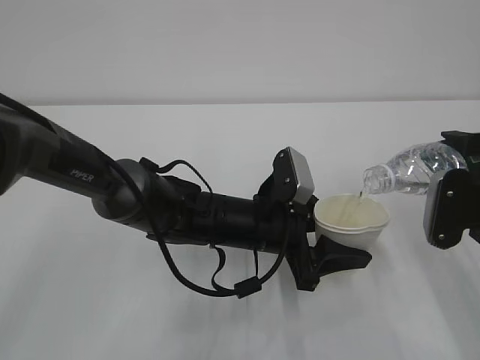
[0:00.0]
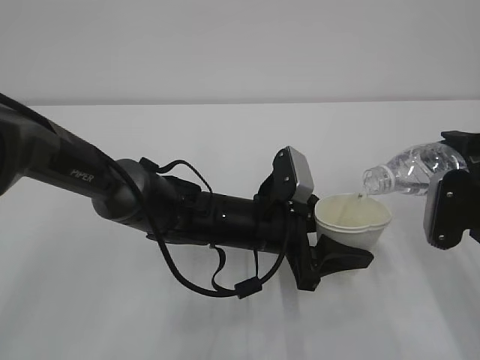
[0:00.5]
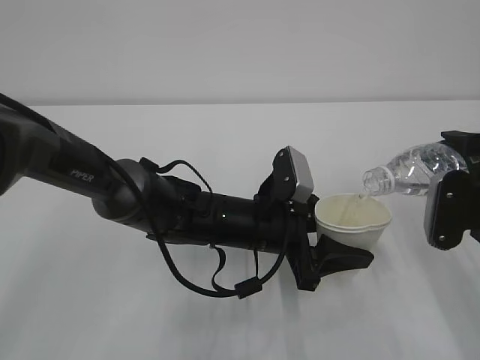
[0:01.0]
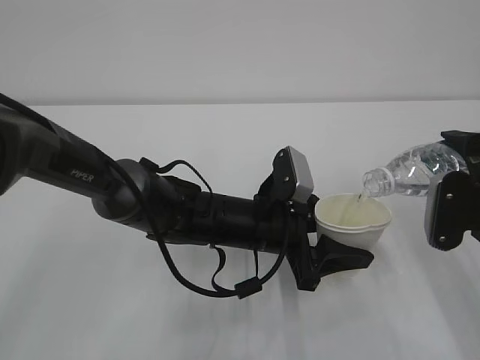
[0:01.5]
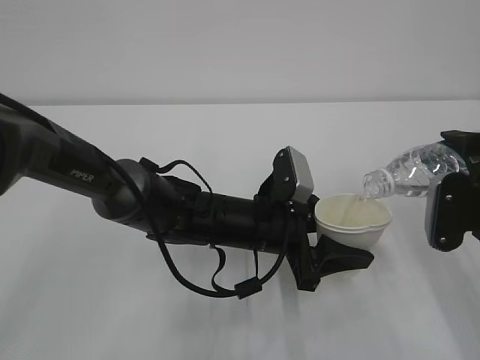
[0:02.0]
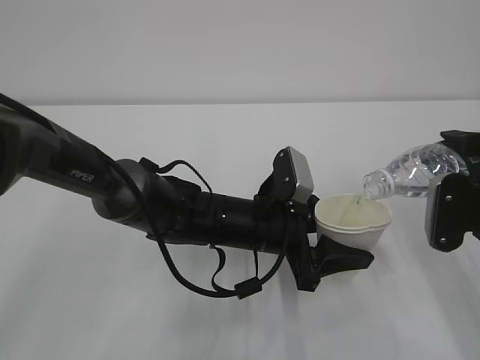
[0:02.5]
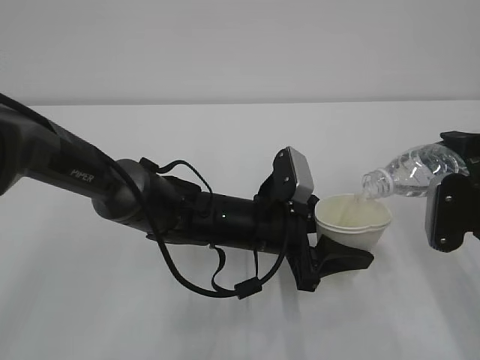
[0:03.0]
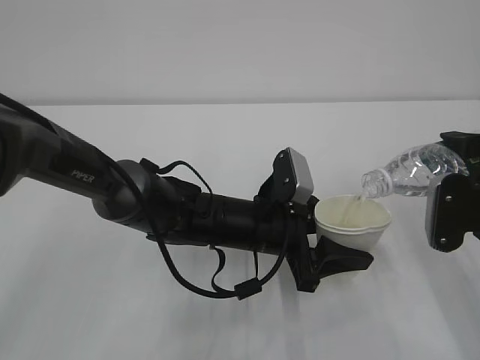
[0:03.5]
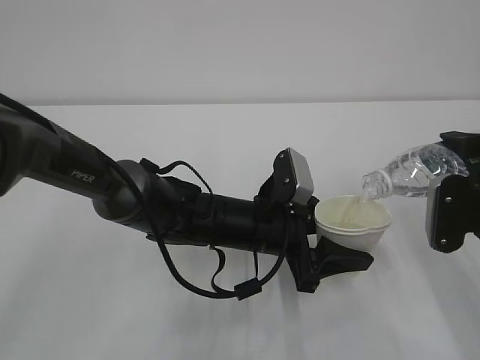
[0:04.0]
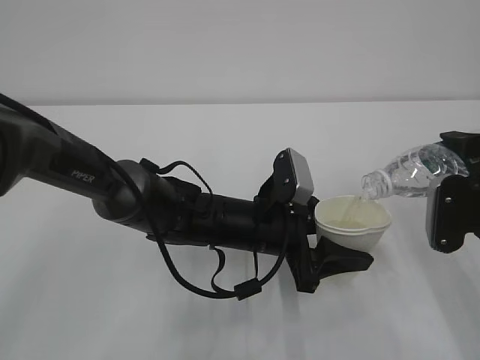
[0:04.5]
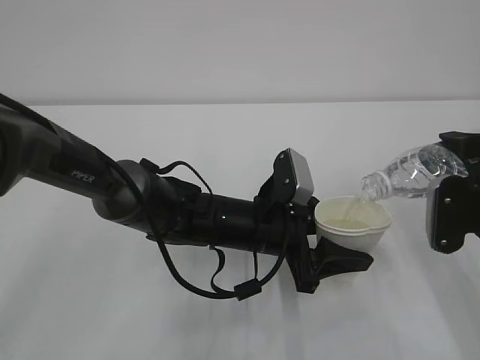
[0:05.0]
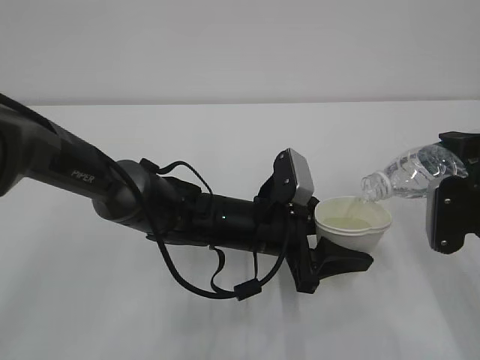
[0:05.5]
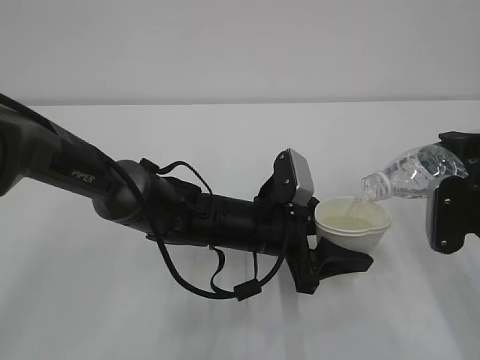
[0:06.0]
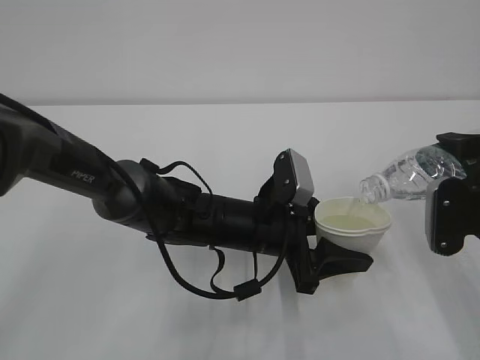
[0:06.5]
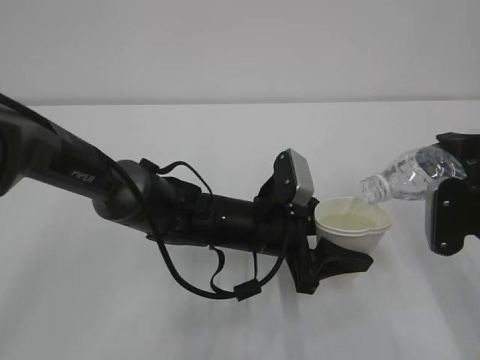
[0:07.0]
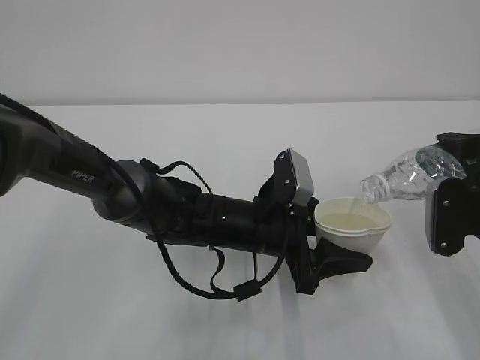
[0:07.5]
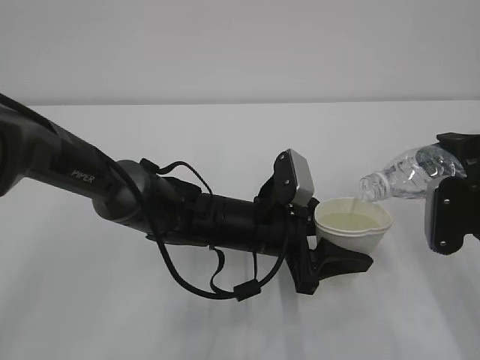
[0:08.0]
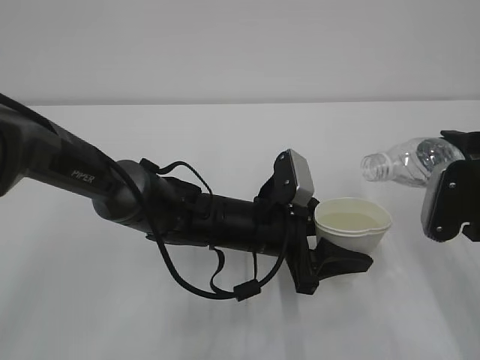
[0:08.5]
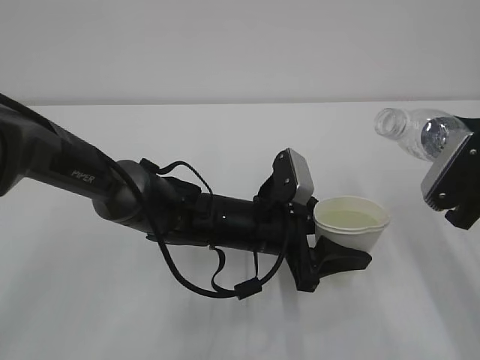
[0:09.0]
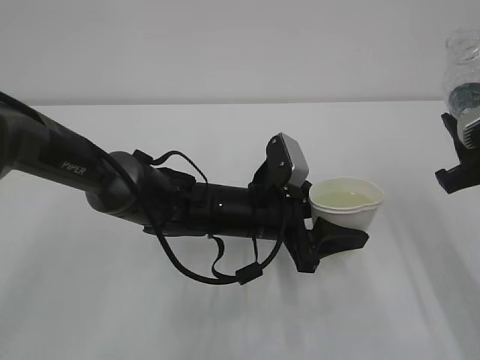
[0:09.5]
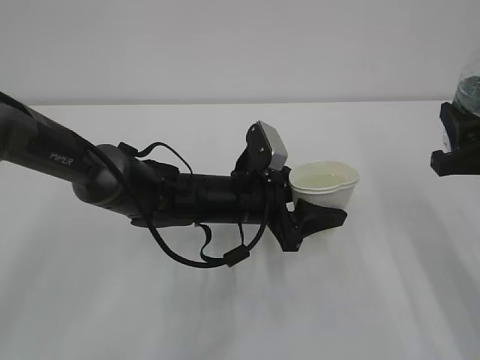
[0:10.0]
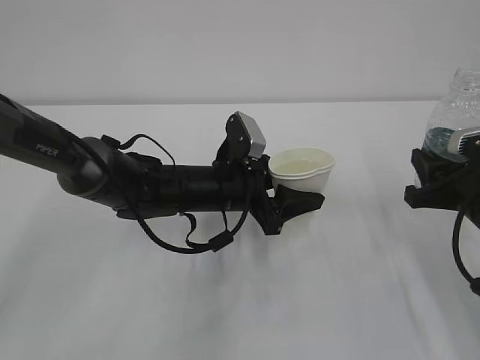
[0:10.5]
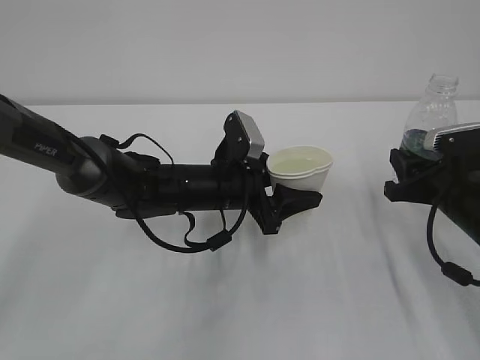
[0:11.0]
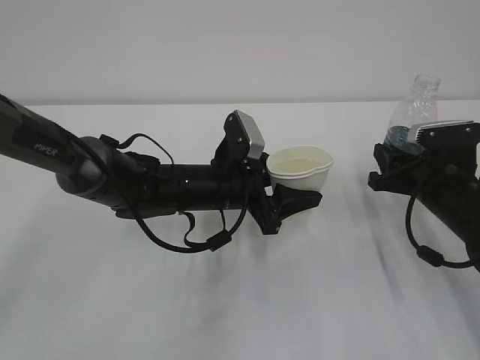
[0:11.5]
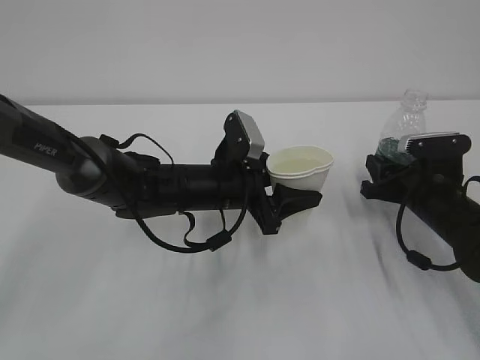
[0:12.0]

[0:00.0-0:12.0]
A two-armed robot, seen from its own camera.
0:00.0 to 0:04.0: Both grippers stay about where they are.
0:04.0 to 0:08.0: Neither gripper changes place.
0:10.0 to 0:12.0: The right gripper shifts some 15 cm downward and forward.

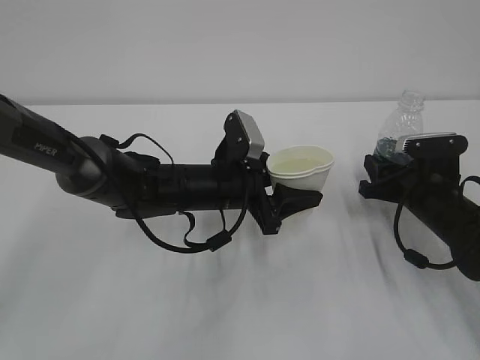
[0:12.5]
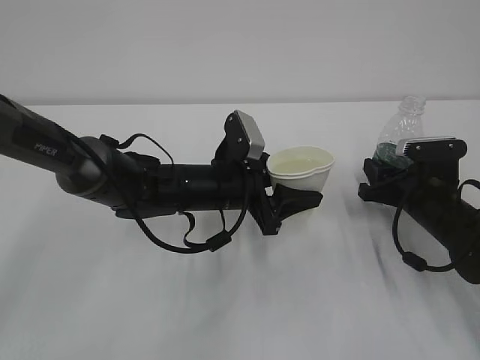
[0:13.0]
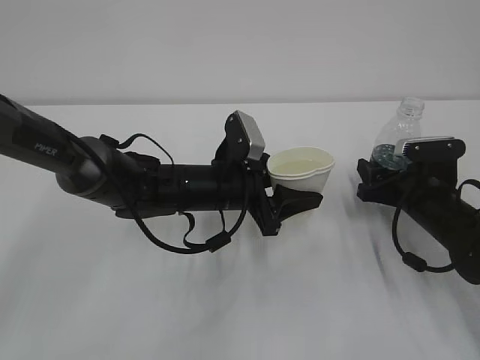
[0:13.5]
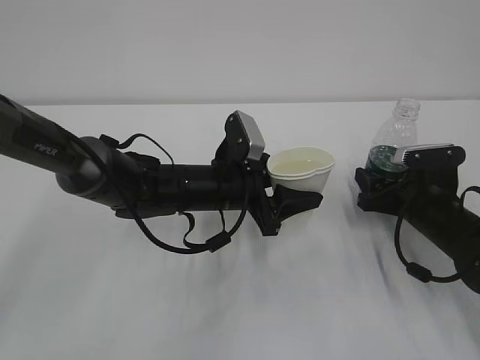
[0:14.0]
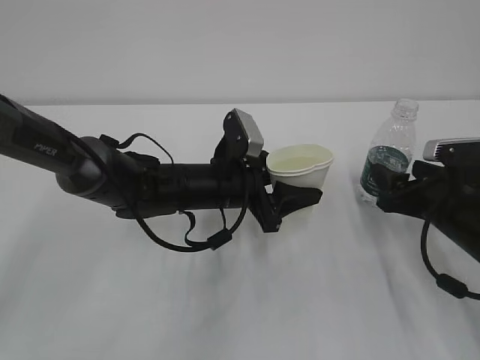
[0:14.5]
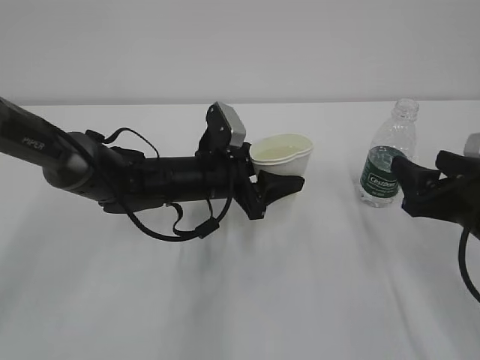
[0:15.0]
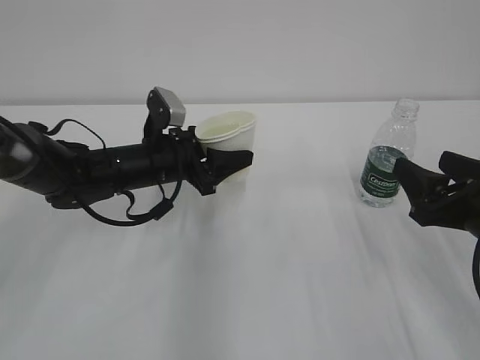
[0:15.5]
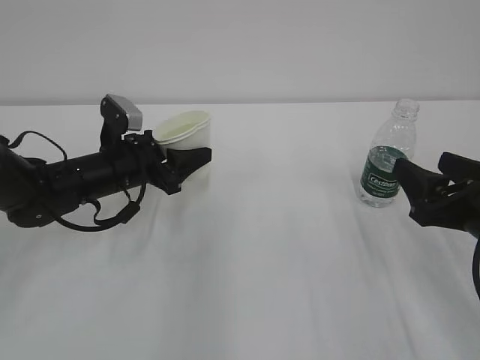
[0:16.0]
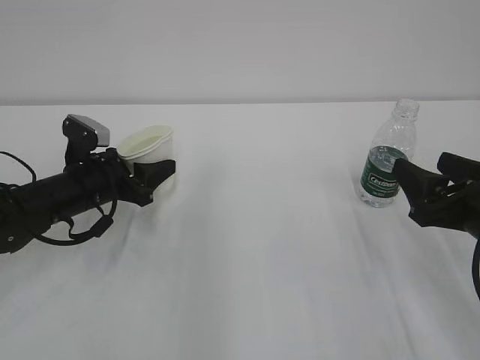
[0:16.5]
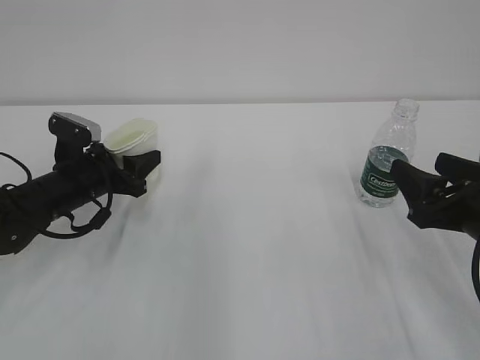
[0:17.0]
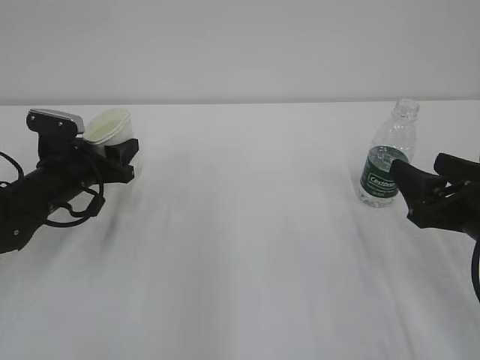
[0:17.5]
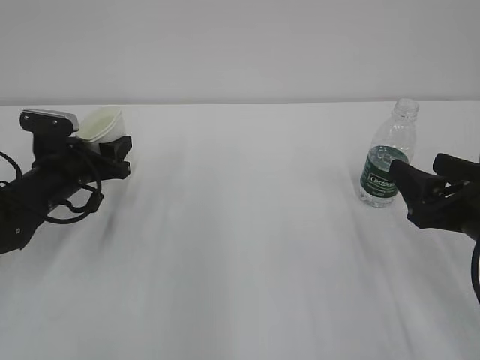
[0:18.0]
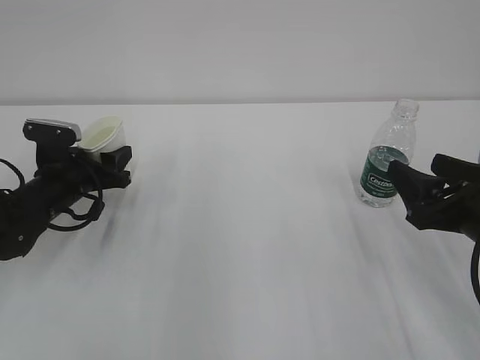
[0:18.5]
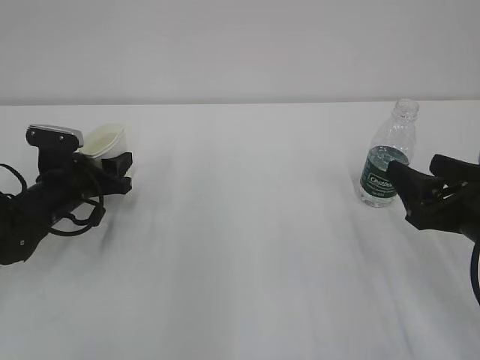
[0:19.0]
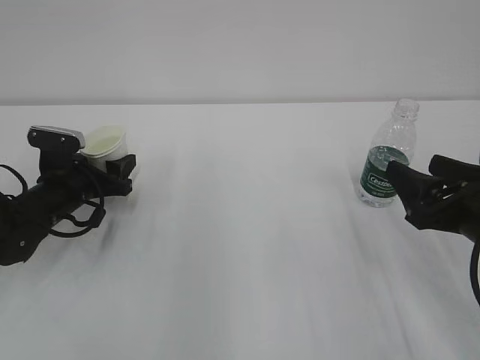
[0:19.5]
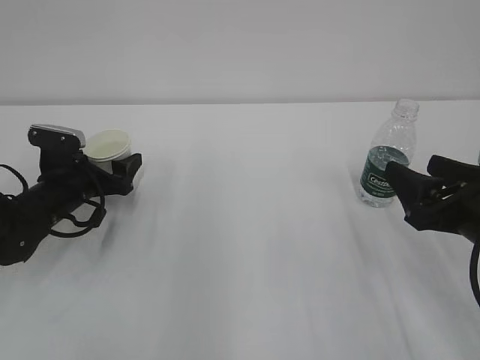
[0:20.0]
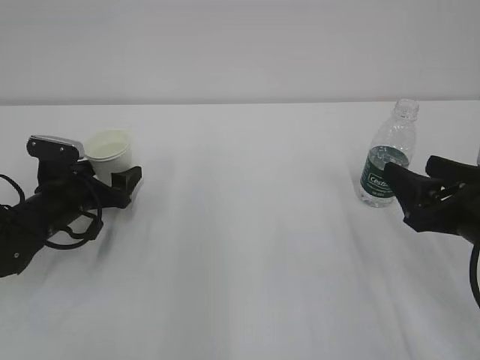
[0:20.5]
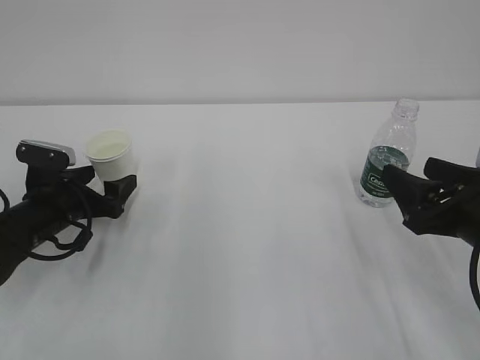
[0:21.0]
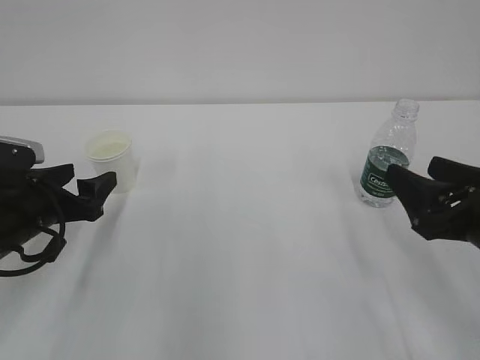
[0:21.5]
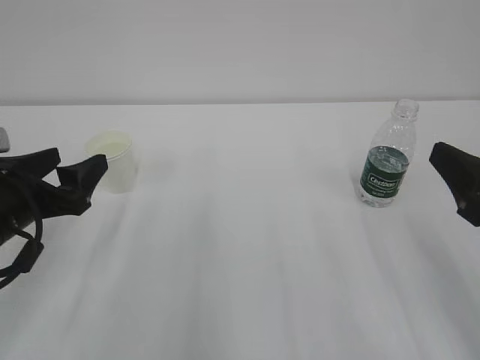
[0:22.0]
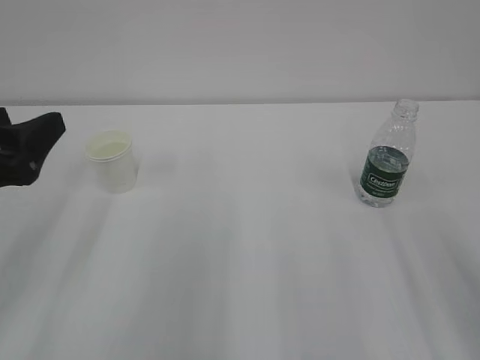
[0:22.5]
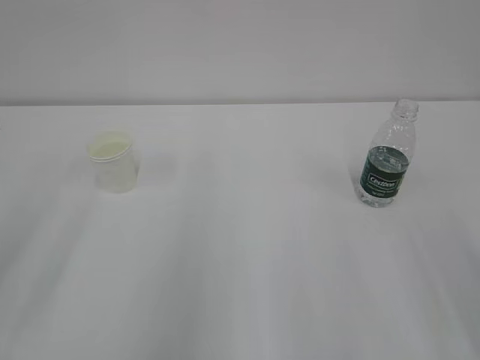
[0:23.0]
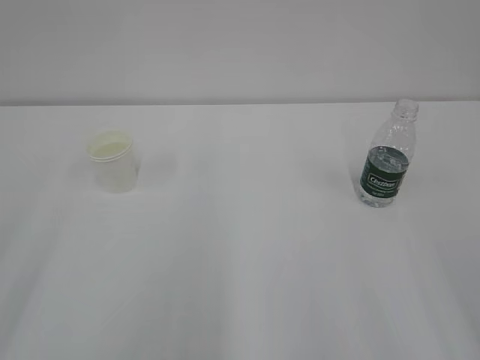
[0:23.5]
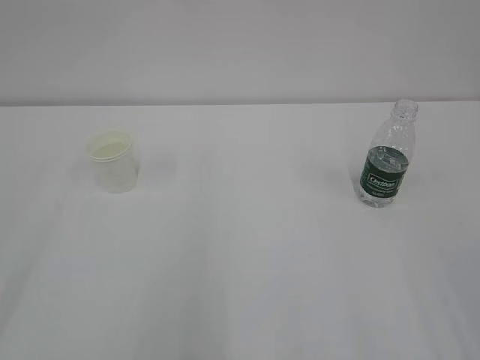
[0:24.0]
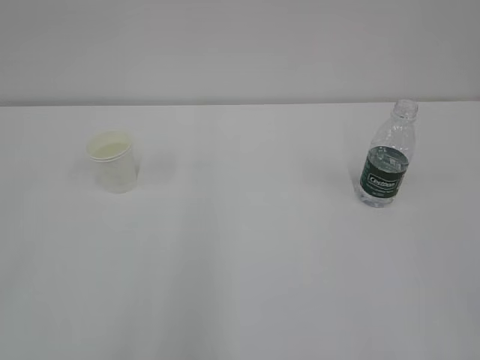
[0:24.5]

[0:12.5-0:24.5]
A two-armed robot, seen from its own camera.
0:12.5 to 0:14.5: The right gripper travels backward by approximately 5 cm, and opens its fingers.
0:14.5 to 0:16.5: The left gripper moves to the left, some 20 cm; the right gripper travels backward and upward by approximately 10 cm.
0:18.5 to 0:20.5: The left gripper opens up.
0:20.5 to 0:22.5: The left gripper shifts approximately 25 cm upward and backward. Meanwhile the right gripper heads upward and backward, covering roughly 15 cm.
0:22.5 to 0:24.5: The left gripper heads backward and upward, covering about 20 cm.

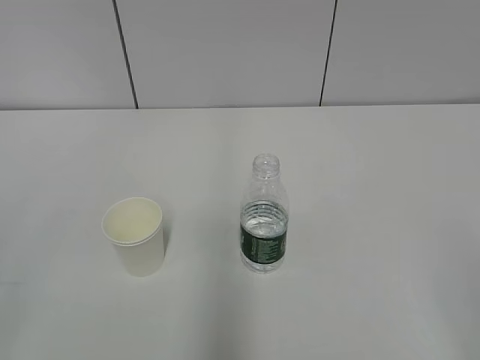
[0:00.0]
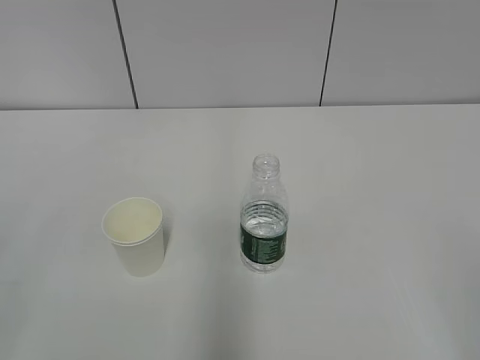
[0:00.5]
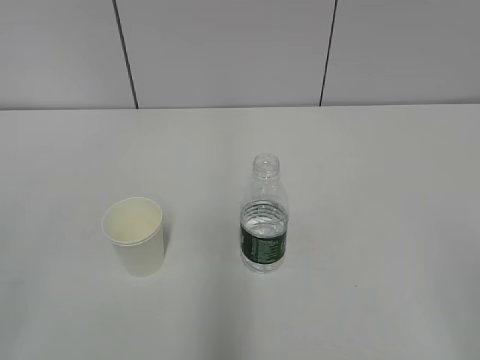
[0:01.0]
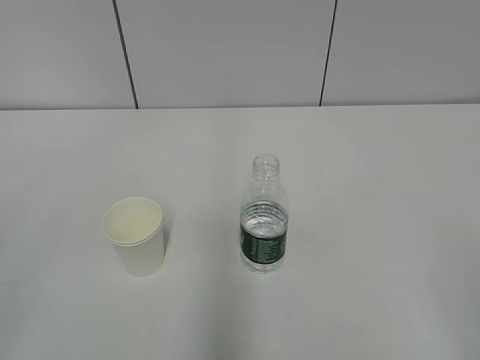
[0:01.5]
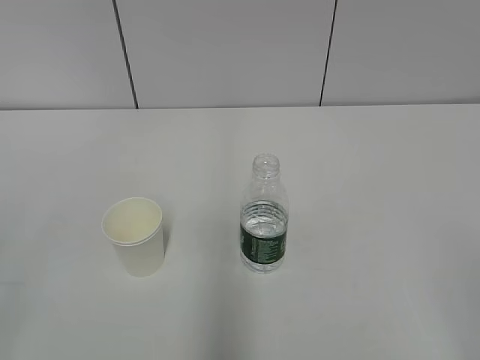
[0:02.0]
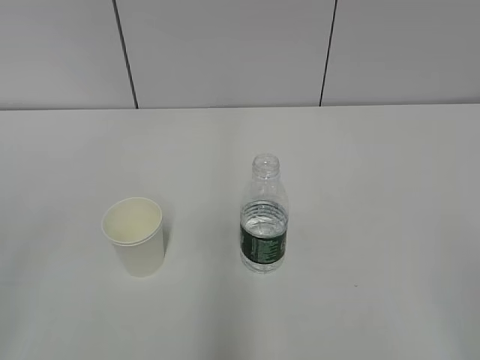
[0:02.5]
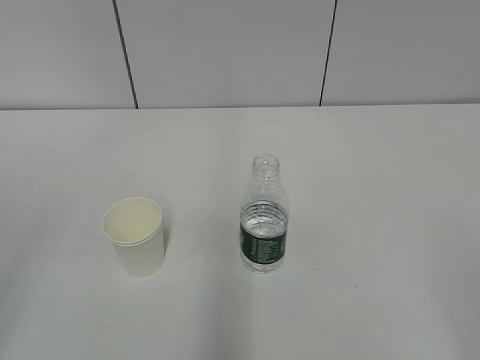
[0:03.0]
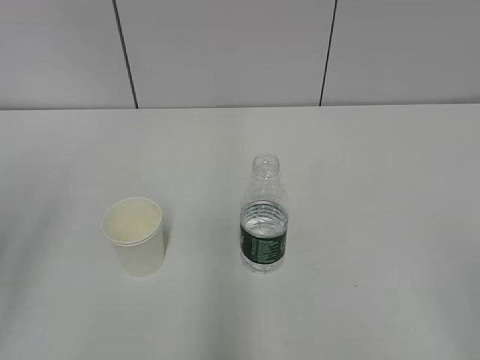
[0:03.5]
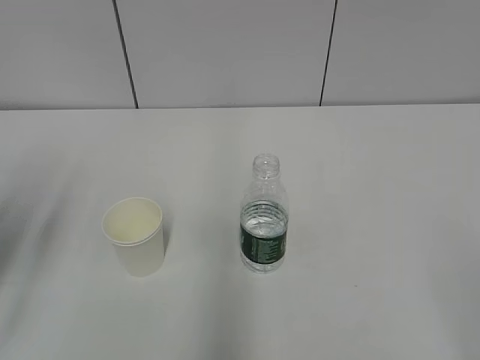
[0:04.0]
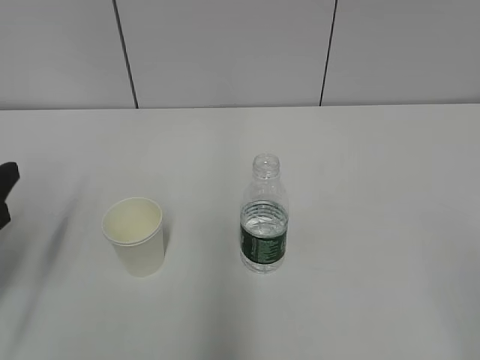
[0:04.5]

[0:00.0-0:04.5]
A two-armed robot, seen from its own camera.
0:02.0 to 0:04.5: The left gripper goes about 25 cm forward and downward.
